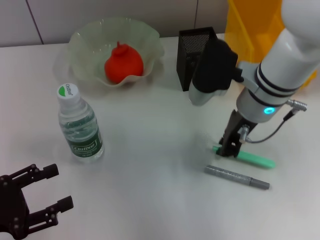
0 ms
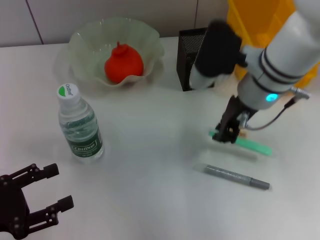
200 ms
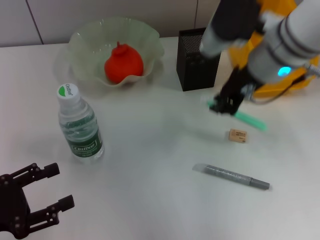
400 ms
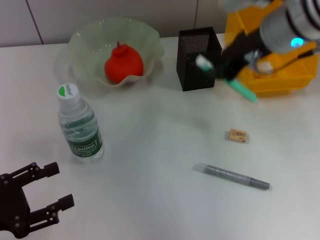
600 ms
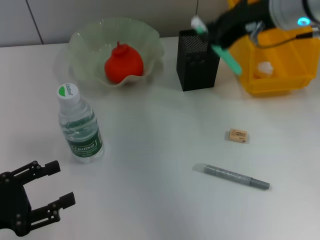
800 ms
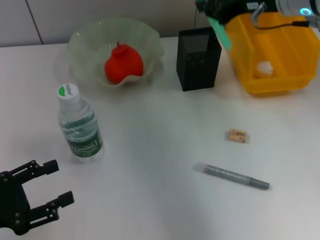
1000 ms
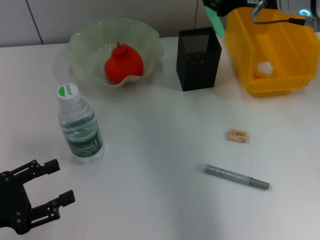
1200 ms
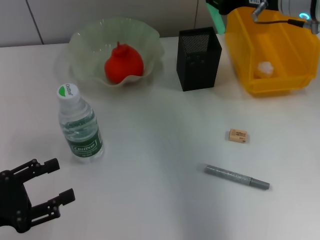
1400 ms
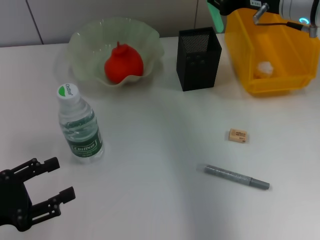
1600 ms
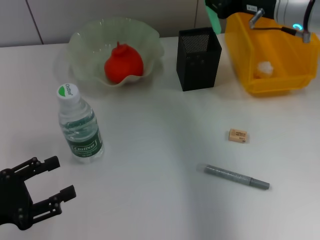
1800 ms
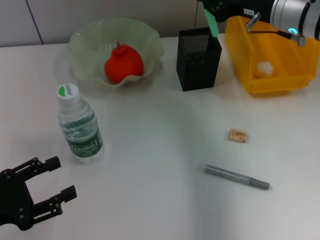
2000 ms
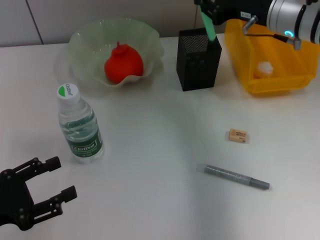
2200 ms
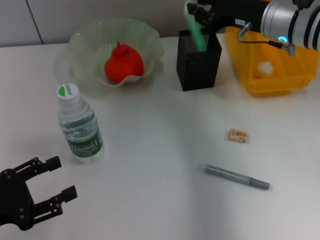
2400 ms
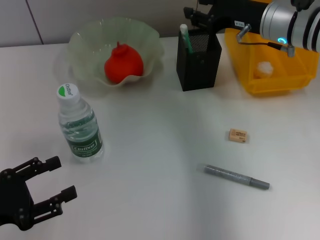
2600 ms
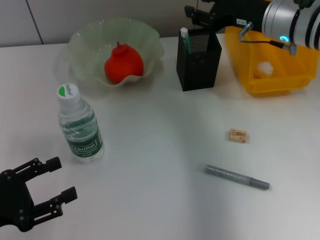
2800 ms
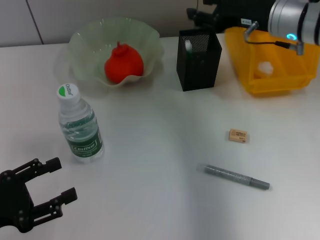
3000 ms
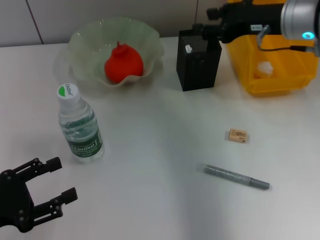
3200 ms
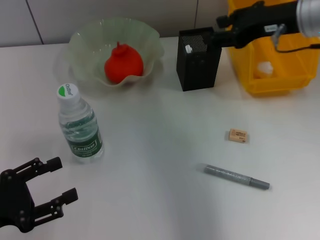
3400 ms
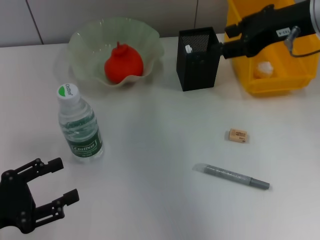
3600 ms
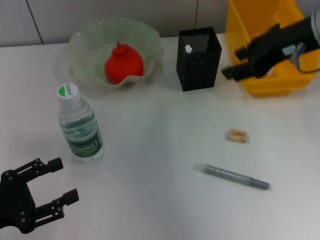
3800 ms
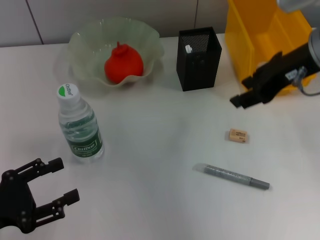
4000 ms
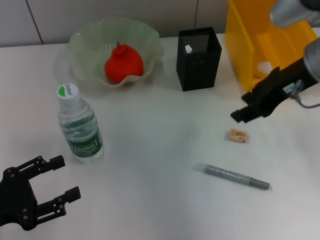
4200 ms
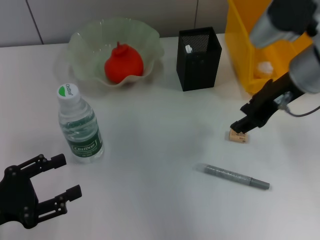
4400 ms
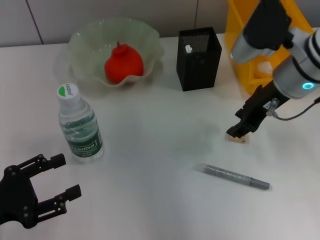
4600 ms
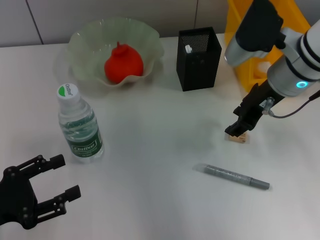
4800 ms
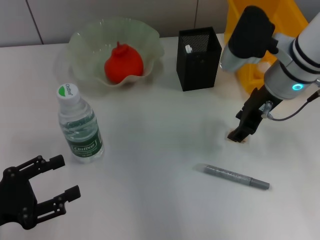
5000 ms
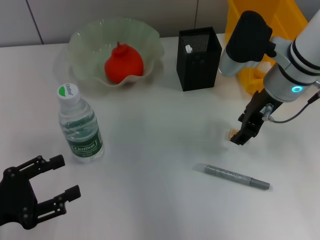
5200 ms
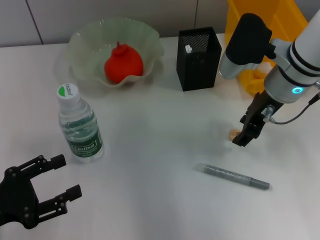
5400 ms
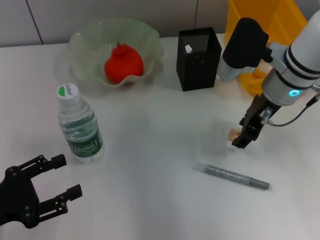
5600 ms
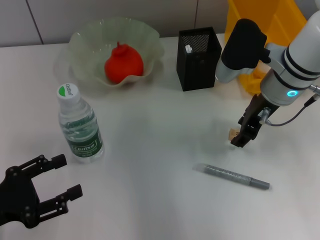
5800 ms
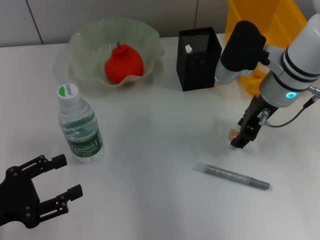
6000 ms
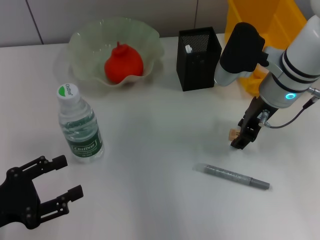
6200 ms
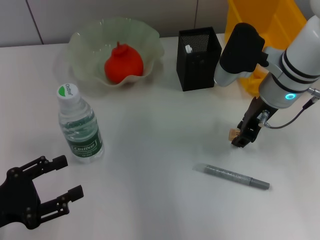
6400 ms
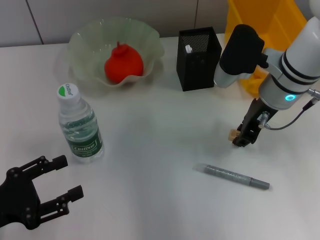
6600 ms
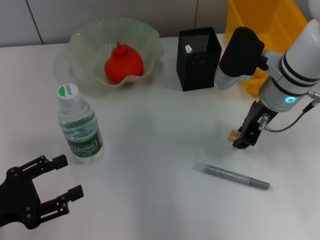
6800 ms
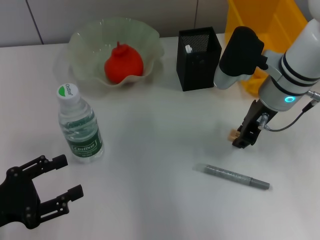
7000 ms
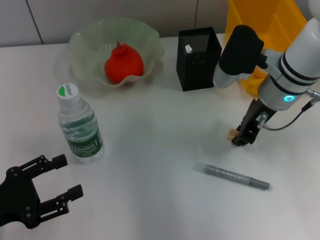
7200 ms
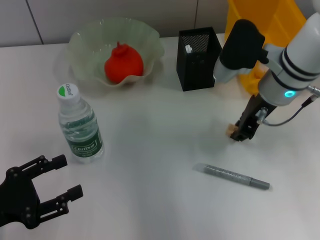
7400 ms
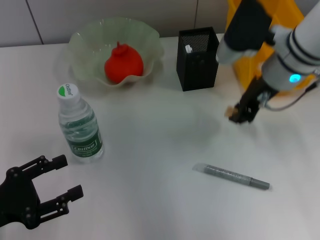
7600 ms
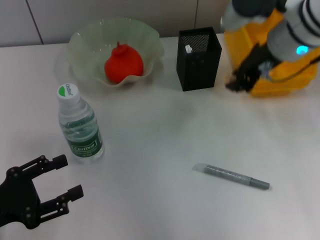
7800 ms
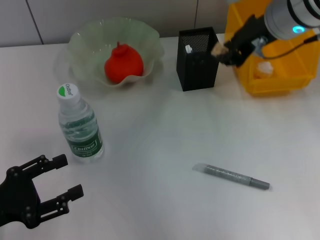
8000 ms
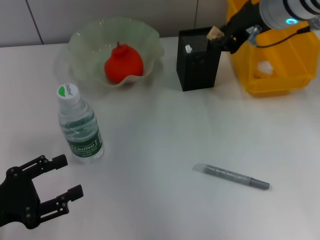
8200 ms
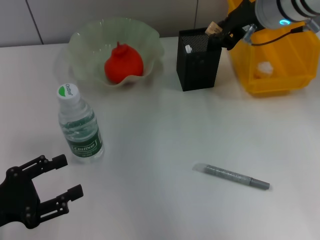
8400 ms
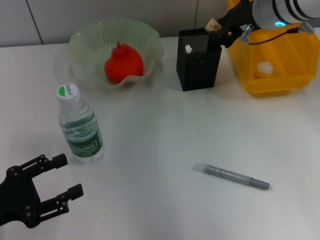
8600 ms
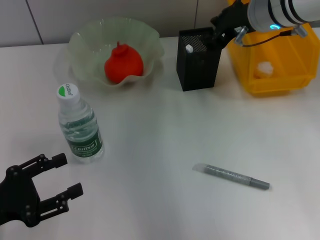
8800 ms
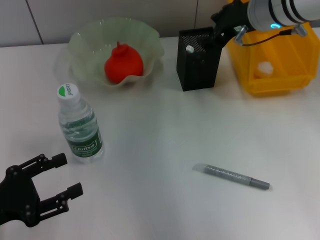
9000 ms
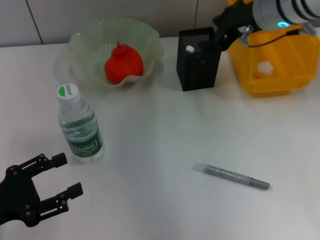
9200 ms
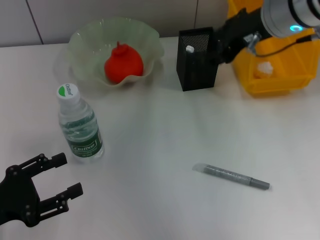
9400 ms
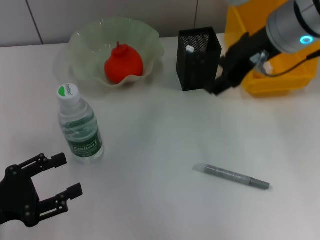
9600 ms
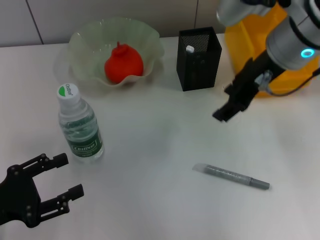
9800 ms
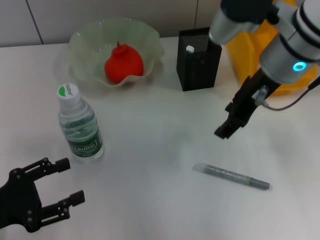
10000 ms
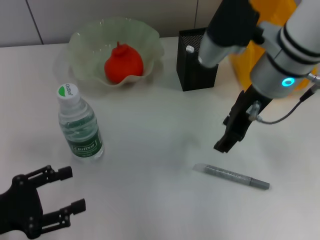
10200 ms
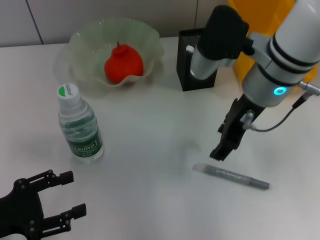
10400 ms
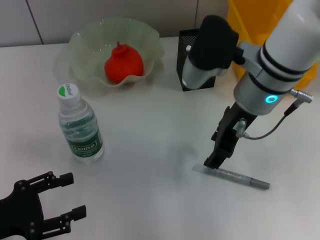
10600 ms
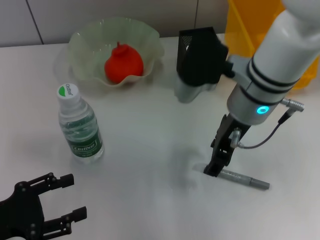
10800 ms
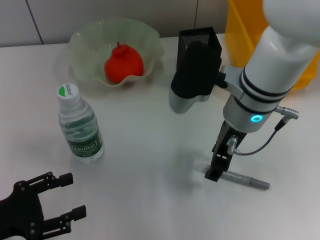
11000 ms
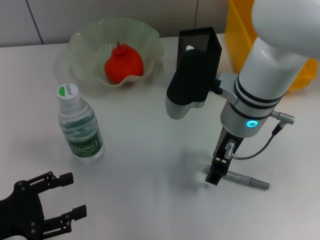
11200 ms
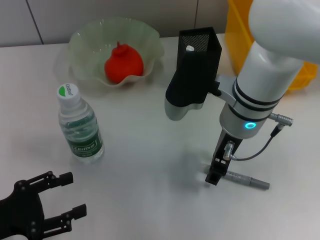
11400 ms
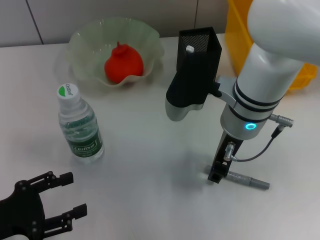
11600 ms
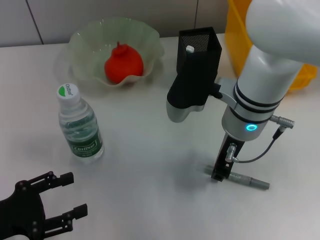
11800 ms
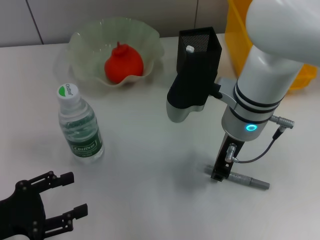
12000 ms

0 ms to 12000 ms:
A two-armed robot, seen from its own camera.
Step, 0 ms to 2600 ms: Place the blue utility knife into the pen holder with the right hand.
Step, 2800 ms to 7000 ms: Grab the eraser with the right hand.
Step, 7400 ms to 8800 ms: Put the eraser into the pen holder with the right hand.
0 ms to 1600 ms: The right gripper heads to the right, upward and forward, covering approximately 10 cm.
1600 ms to 3000 ms: The right gripper opens.
3000 ms to 4400 ms: The right gripper moves backward, some 5 cm, and moves approximately 10 cm upward and comes back.
4400 ms to 6000 ms: The right gripper is displaced downward by approximately 5 cm.
6000 ms to 7600 ms: The right gripper closes its fingers.
7600 ms to 9000 ms: The right gripper shifts by approximately 5 cm.
9000 ms to 10400 ms: The right gripper moves backward, roughly 10 cm.
10400 ms to 12000 ms: The right gripper goes roughly 5 cm downward, and closes its fingers.

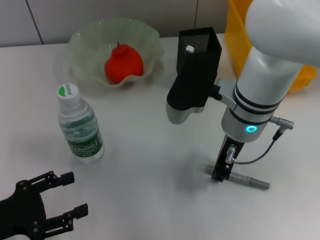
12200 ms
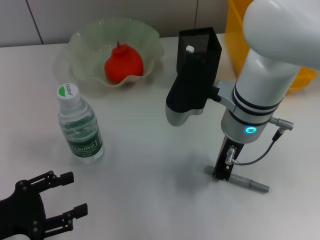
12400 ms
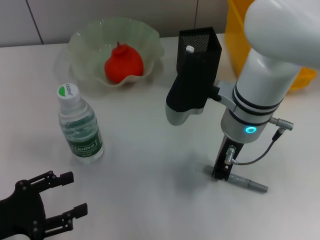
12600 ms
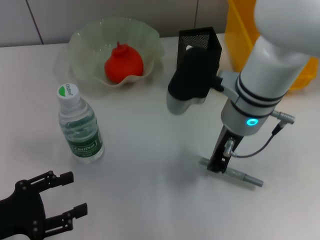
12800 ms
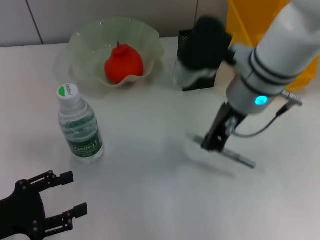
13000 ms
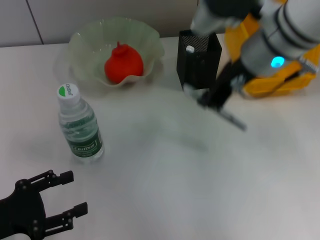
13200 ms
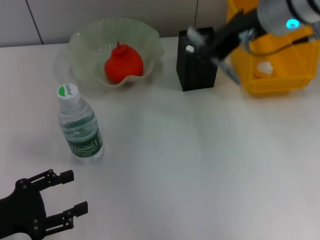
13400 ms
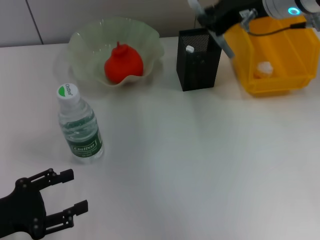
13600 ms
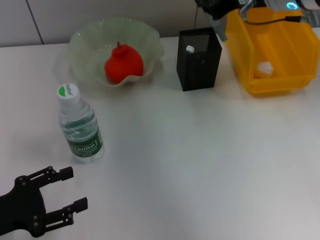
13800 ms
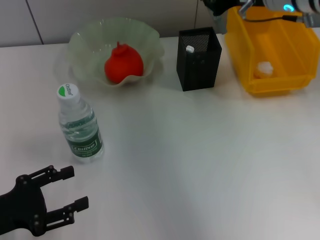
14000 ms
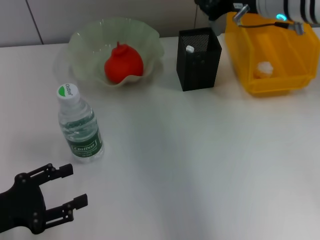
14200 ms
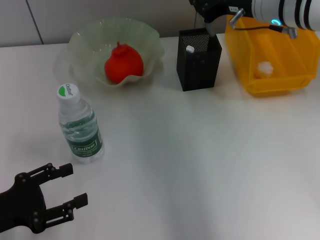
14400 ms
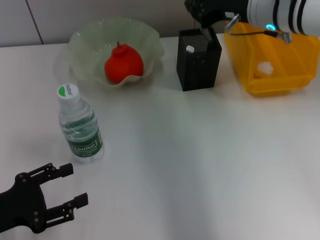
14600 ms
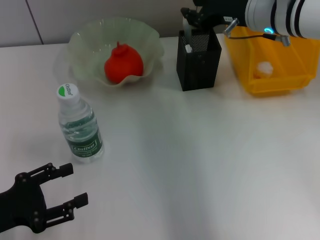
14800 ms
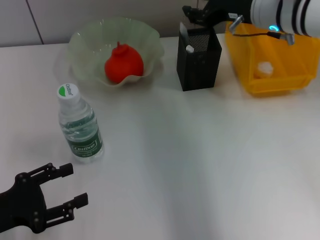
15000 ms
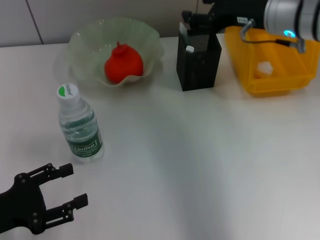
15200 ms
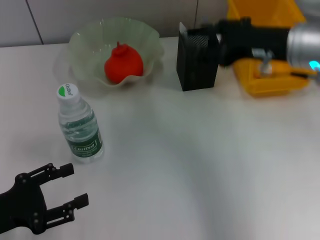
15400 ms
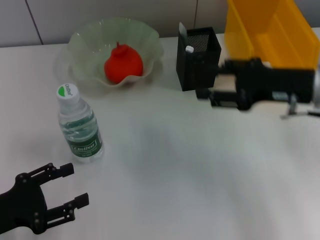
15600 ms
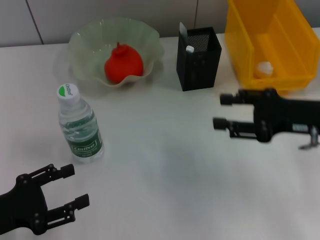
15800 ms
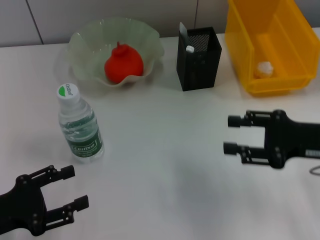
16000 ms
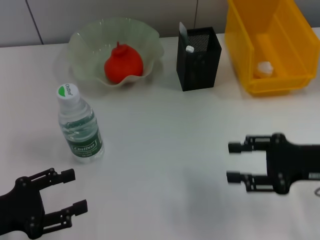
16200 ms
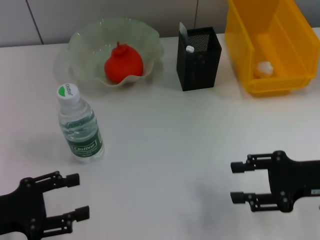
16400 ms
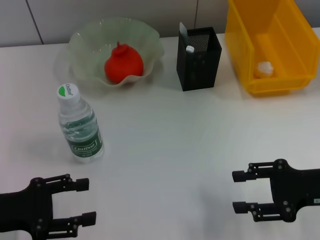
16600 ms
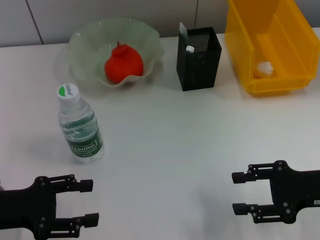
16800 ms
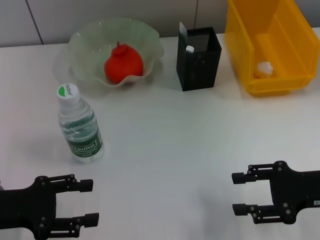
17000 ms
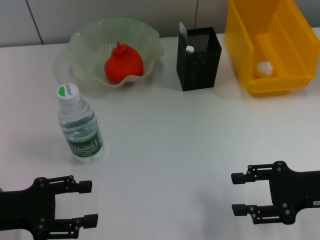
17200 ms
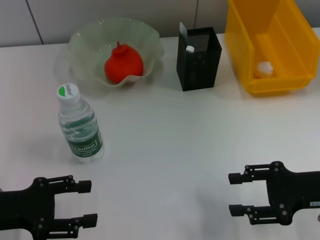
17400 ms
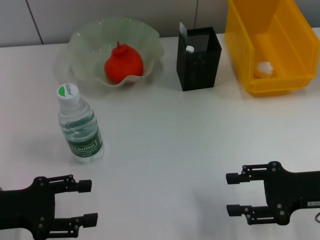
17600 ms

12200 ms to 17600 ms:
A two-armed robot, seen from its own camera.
Step, 12400 ms to 14800 ms: Place the gray glue into the pen holder with the right hand.
12200 ms to 13600 ms: The right gripper shifts about 15 cm upward, to the right and forward.
13600 ms to 15000 ms: The right gripper shifts roughly 5 cm downward.
15000 ms to 16200 ms: The right gripper heads backward, to the right and downward, covering about 20 cm, and opens up.
16200 ms to 17600 ms: There are only small adjustments of the grippers.

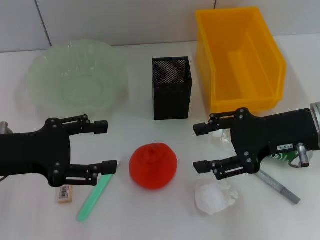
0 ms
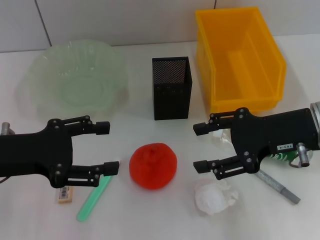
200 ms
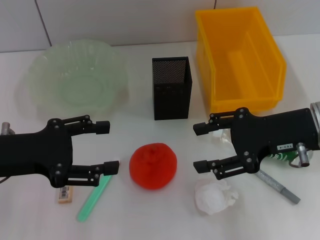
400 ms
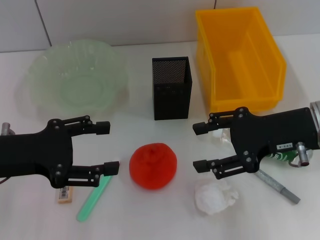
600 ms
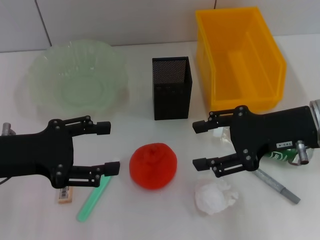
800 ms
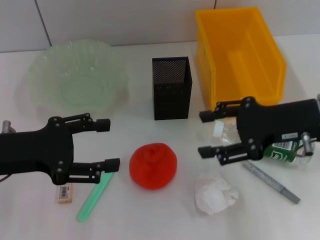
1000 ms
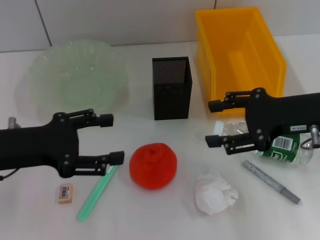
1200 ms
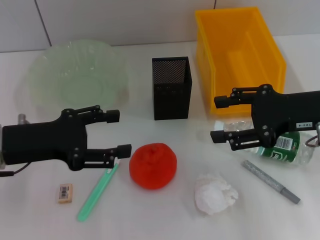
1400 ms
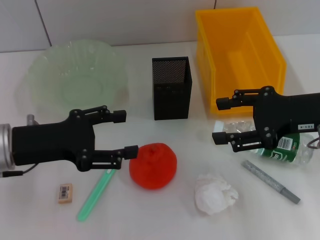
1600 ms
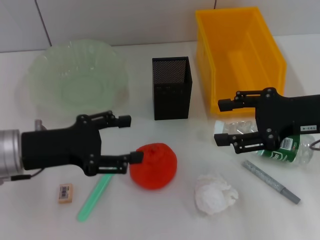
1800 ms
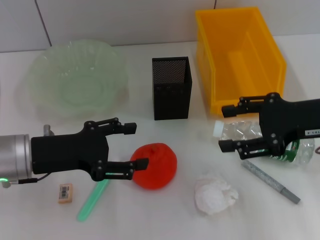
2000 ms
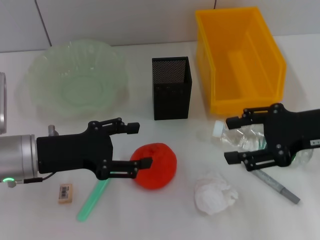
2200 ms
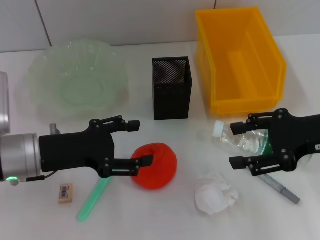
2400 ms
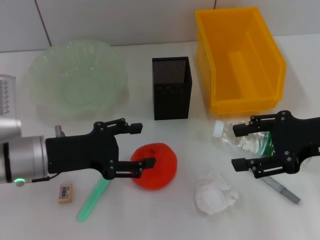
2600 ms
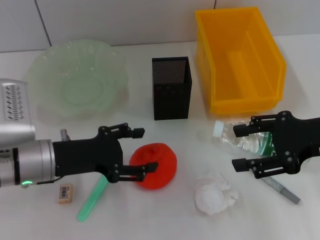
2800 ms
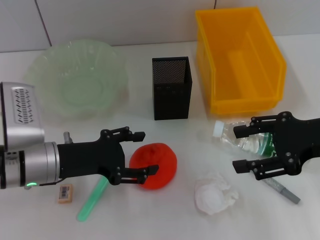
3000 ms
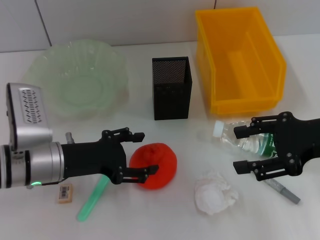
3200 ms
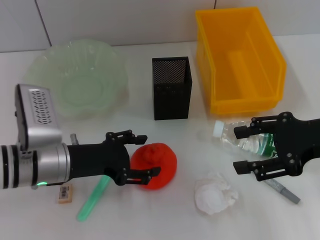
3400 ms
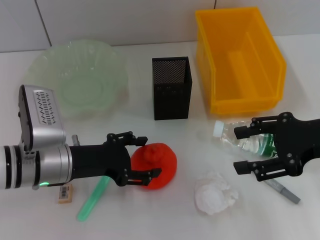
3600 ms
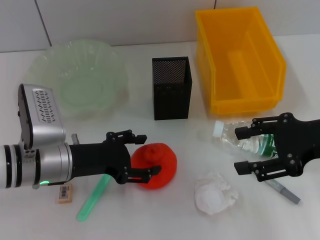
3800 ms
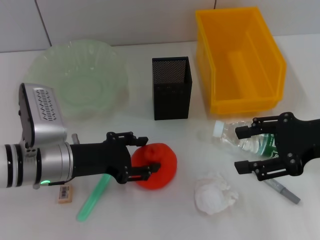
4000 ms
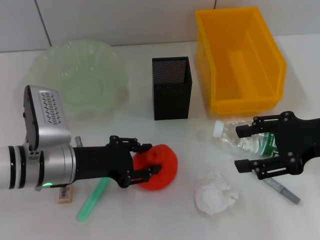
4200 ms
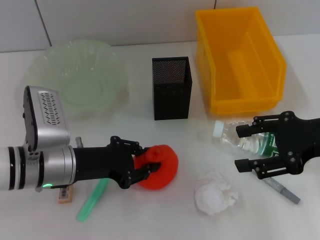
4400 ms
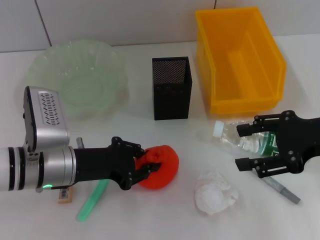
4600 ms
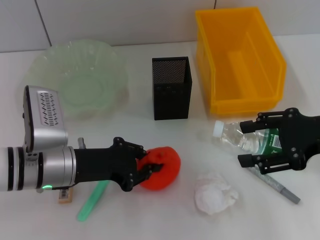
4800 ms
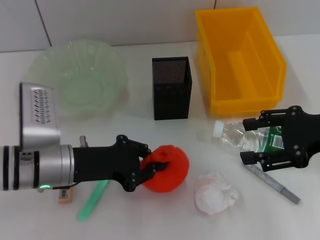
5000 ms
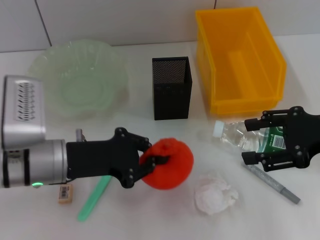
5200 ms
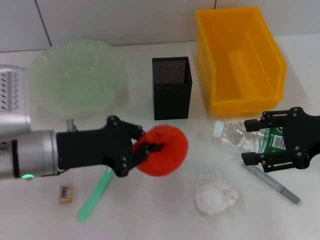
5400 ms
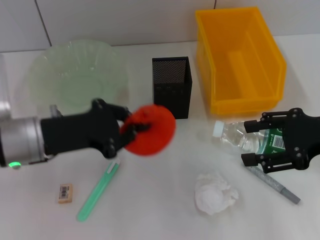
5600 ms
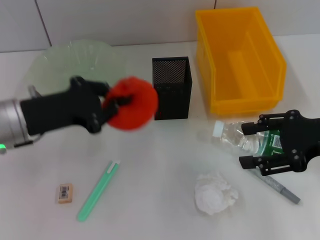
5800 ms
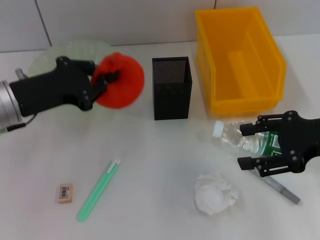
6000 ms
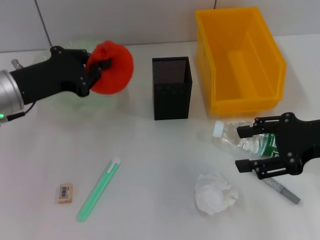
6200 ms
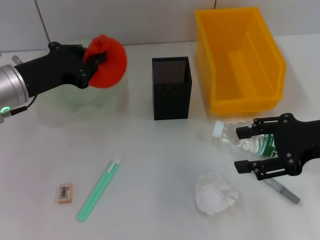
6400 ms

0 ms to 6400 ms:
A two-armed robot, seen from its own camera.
Step, 0 ms to 4400 ms: Grab the orange with the left hand.
0 ms to 1600 ms: The grippers stay close to where they were, moving slightly.
1600 ms to 3200 ms: The left gripper goes some 5 cm downward.
3200 ms to 4800 ms: The left gripper closes.
4800 ms to 6400 ms: The left gripper heads upward and forward, covering about 10 cm.
